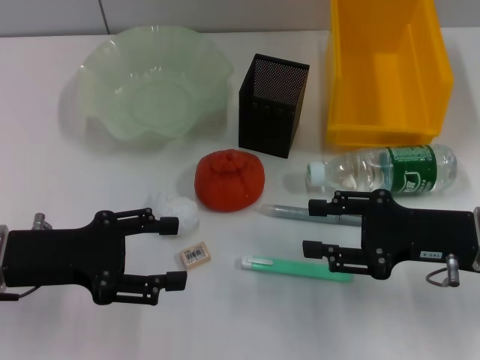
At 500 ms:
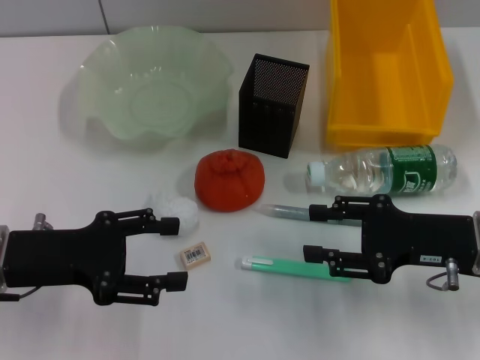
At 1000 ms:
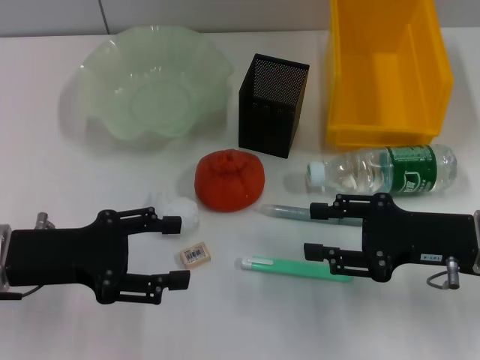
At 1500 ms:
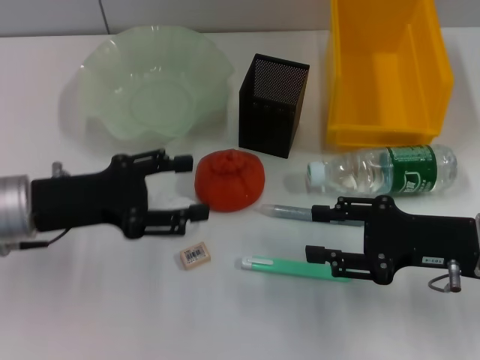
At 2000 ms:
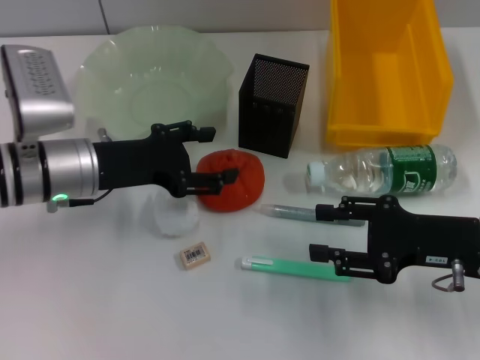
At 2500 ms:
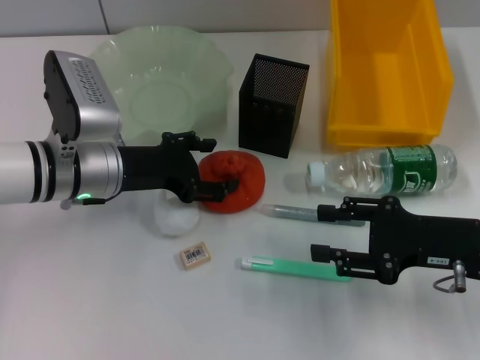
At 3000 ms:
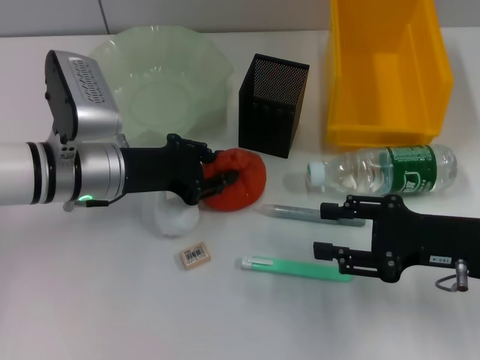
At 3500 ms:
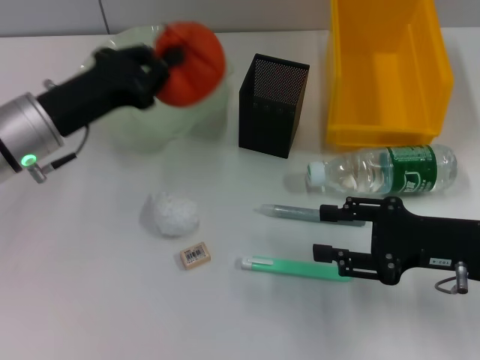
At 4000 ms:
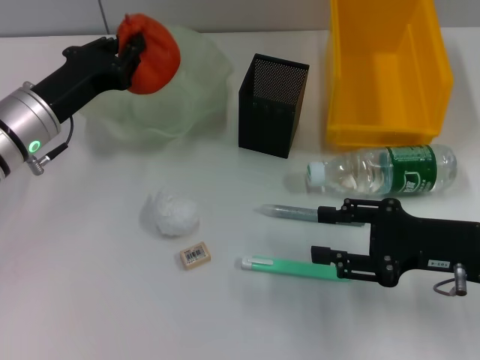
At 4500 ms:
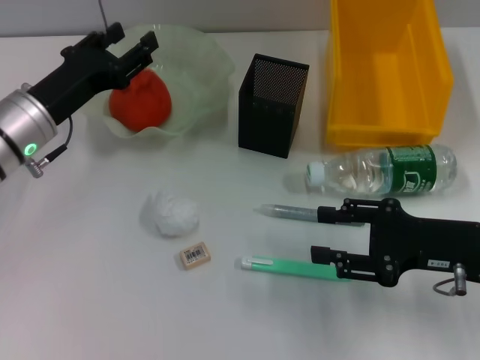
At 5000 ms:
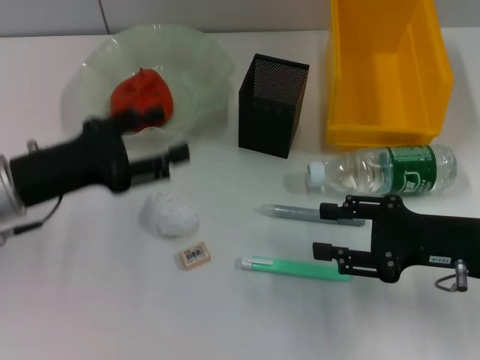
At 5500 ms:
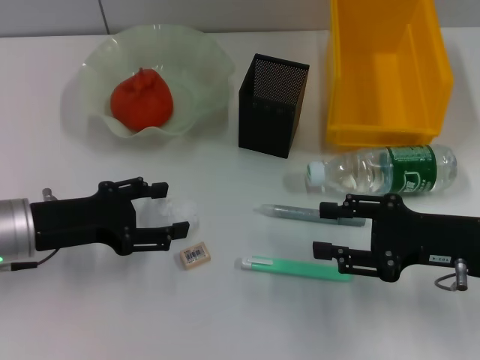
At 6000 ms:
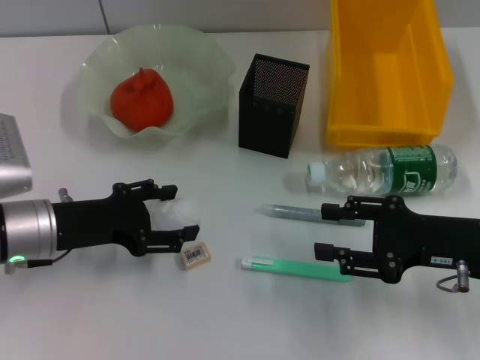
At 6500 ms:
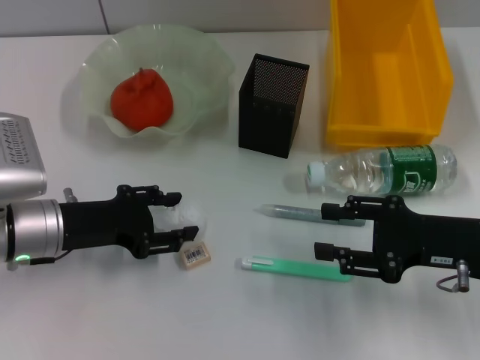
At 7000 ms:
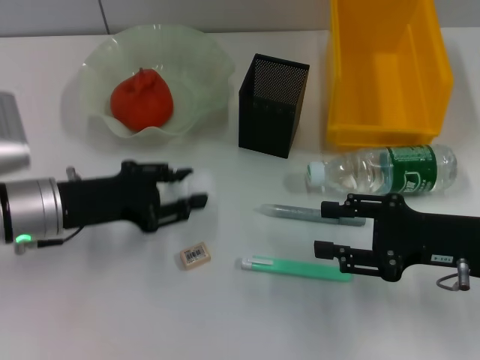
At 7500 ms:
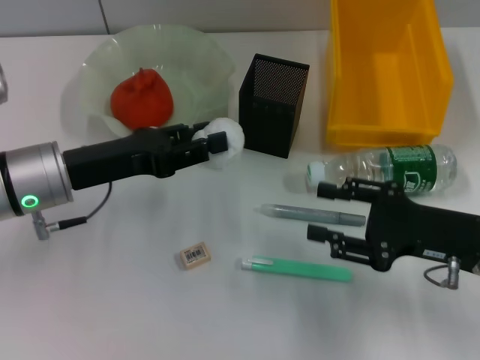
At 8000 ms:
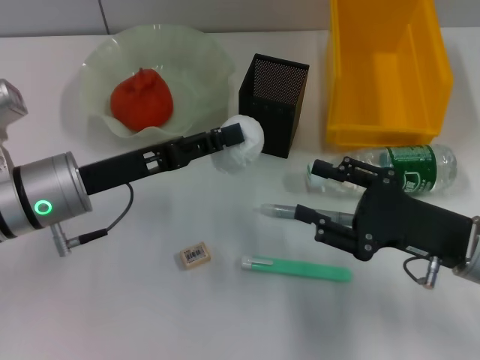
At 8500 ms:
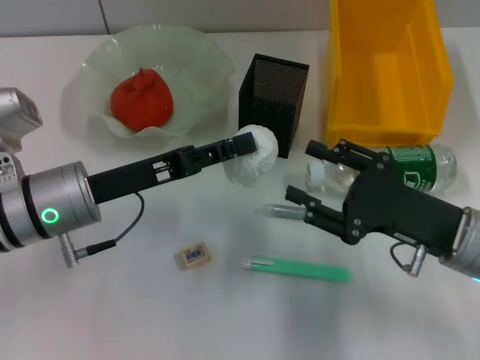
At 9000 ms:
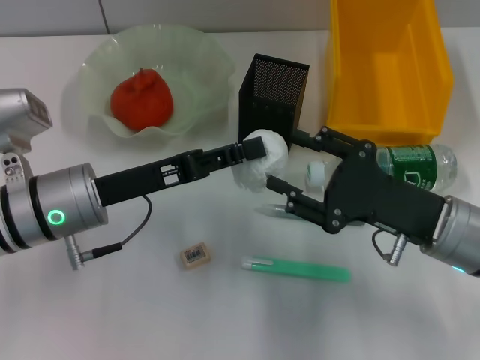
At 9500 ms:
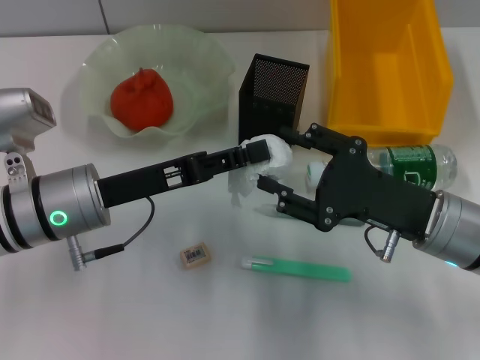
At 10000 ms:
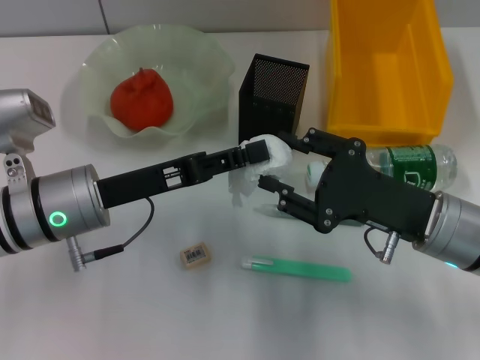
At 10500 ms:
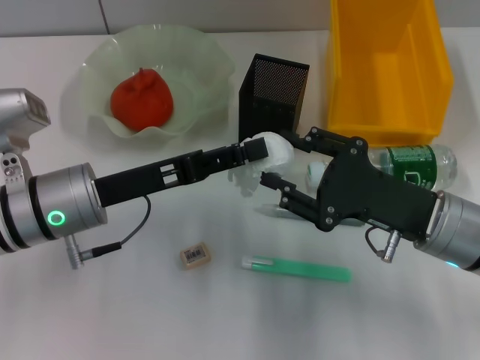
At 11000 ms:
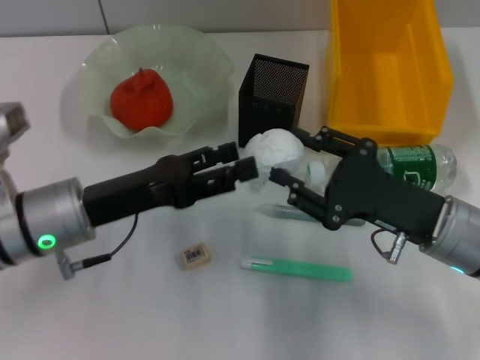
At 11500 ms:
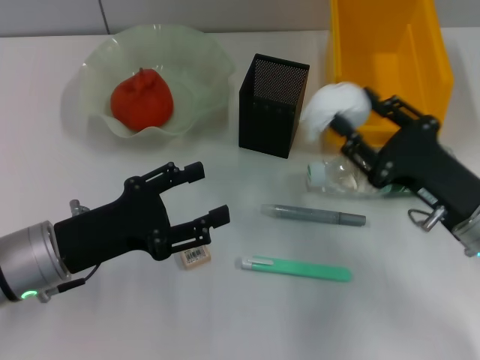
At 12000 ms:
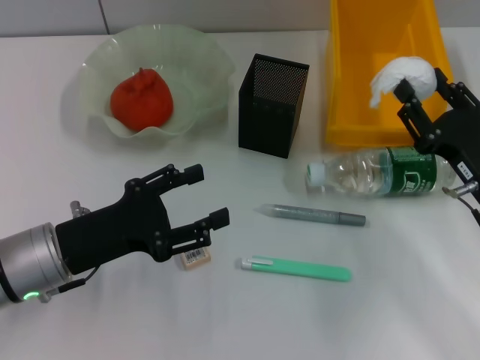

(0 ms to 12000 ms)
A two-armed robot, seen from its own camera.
Step, 0 ms - 2500 ms: Grab the orange with the left hand.
Step, 3000 ms - 4000 ms: Place the orange into the fruit bowl with the left hand.
Step, 4500 ms - 6500 ms: Grab the paper ball with the left hand.
Step, 7000 ms - 10500 ms: Pass the paper ball from the left hand to the right hand.
0 ms - 2000 ms: The left gripper shifts approximately 10 cm forward and to the right.
2000 ms - 4000 ms: The left gripper closes its fingers.
4000 ms - 6000 ms: The left gripper is displaced backward by about 5 cm, and opens up.
6000 ms - 8000 ms: The left gripper shifts by approximately 5 cm, and closes its fingers.
10000 ms - 12000 ms: The left gripper moves approximately 5 cm, and opens up, while the right gripper moves to the right, approximately 5 cm.

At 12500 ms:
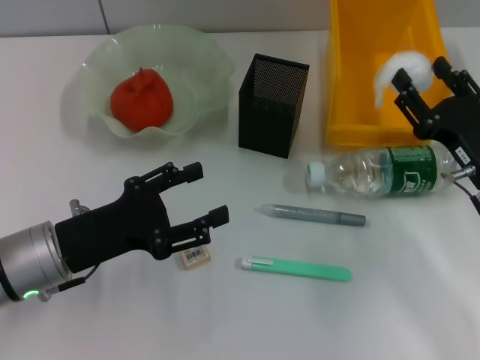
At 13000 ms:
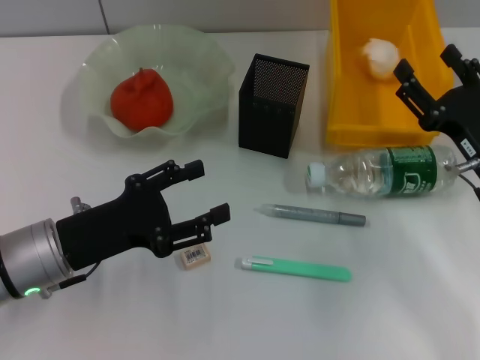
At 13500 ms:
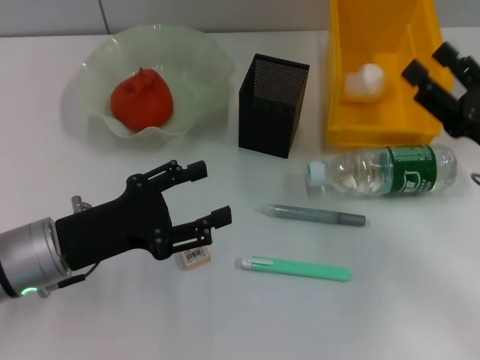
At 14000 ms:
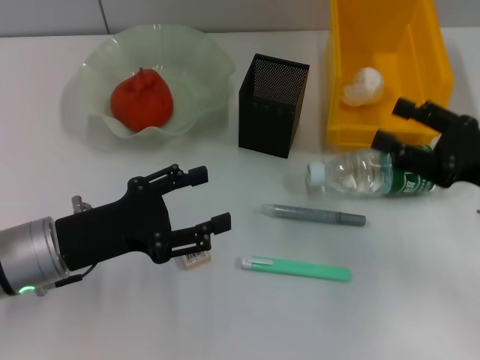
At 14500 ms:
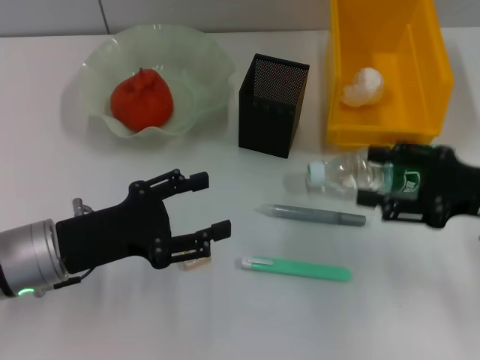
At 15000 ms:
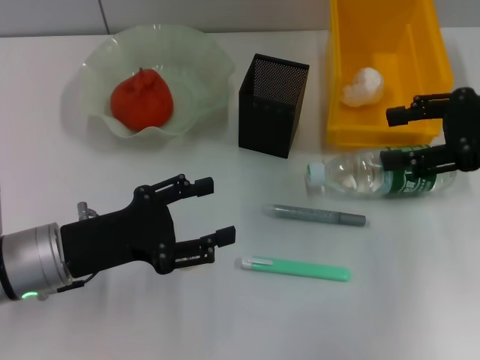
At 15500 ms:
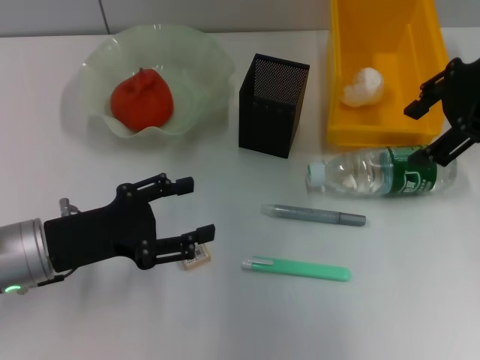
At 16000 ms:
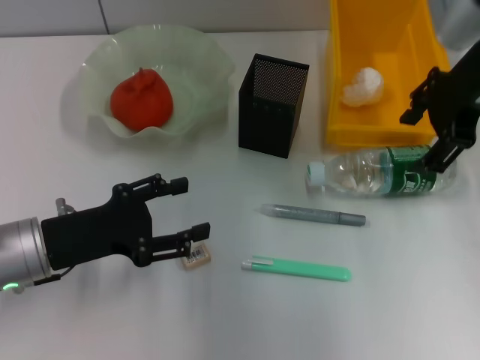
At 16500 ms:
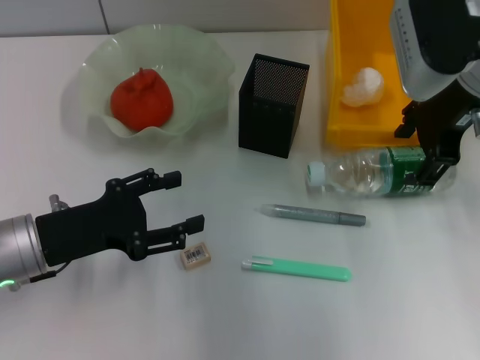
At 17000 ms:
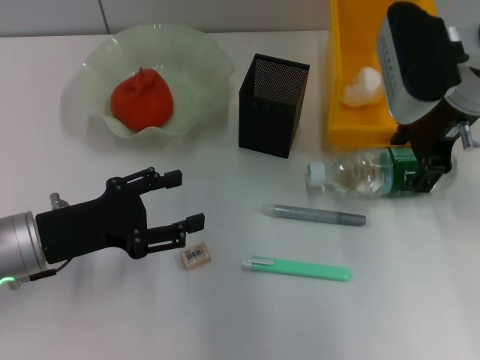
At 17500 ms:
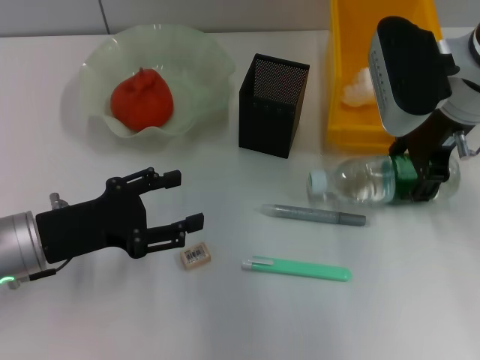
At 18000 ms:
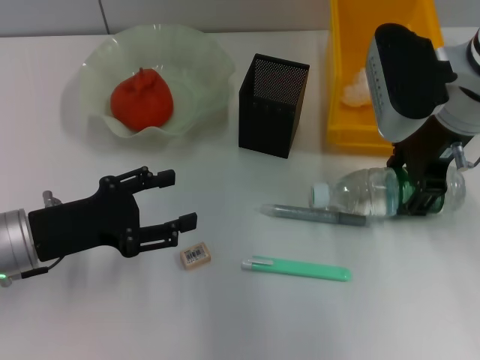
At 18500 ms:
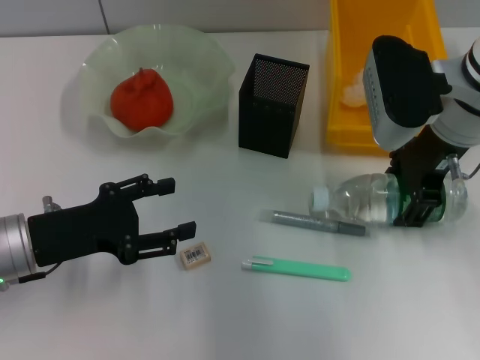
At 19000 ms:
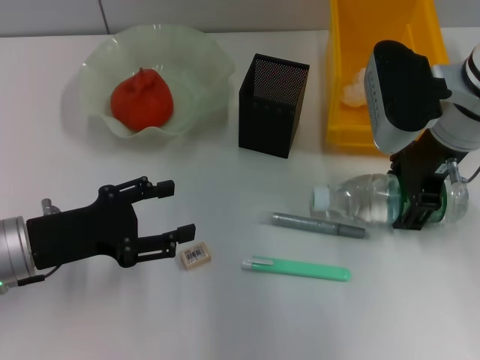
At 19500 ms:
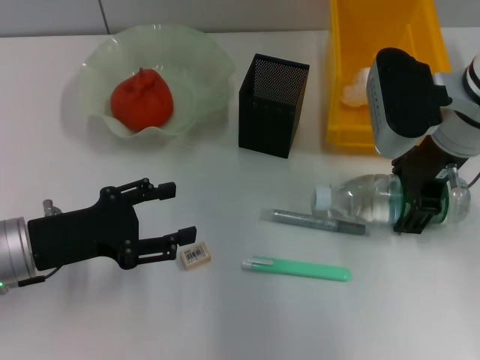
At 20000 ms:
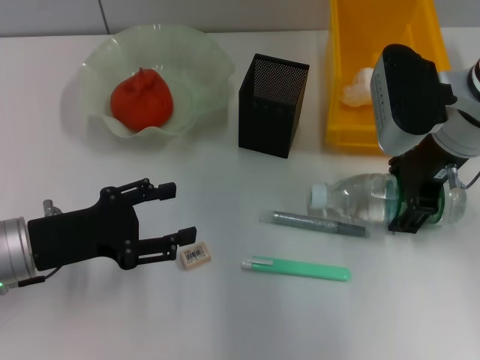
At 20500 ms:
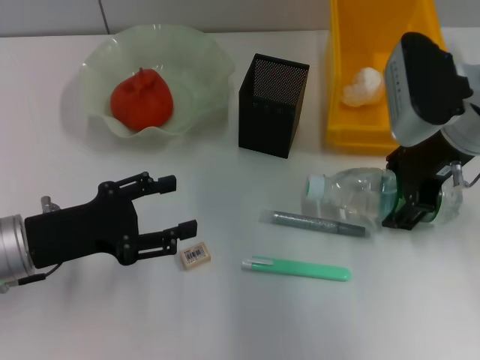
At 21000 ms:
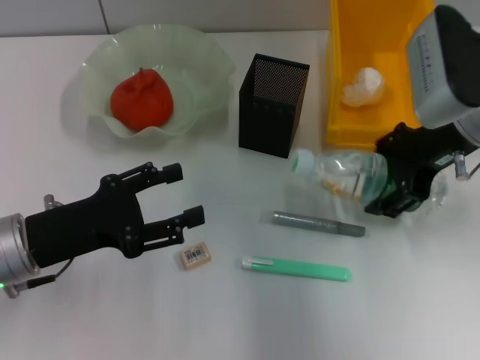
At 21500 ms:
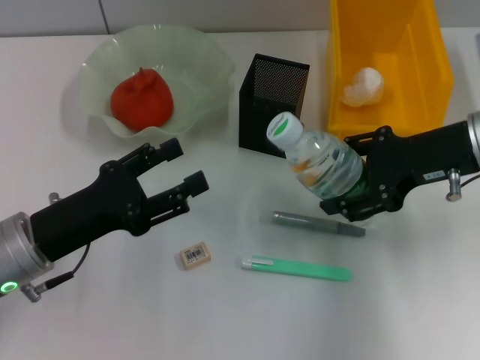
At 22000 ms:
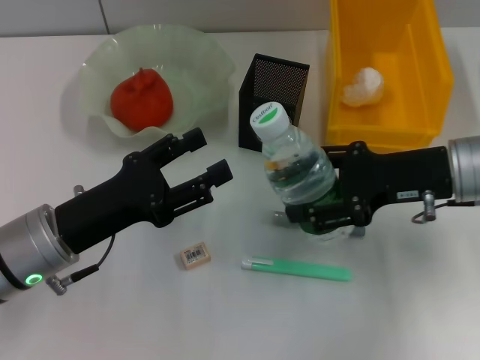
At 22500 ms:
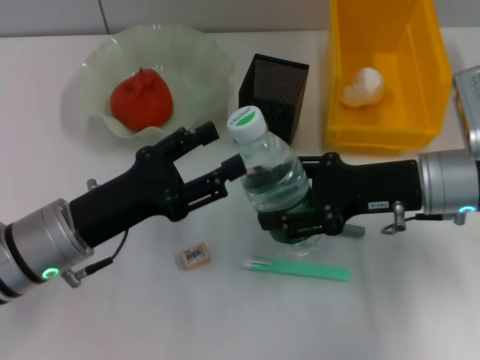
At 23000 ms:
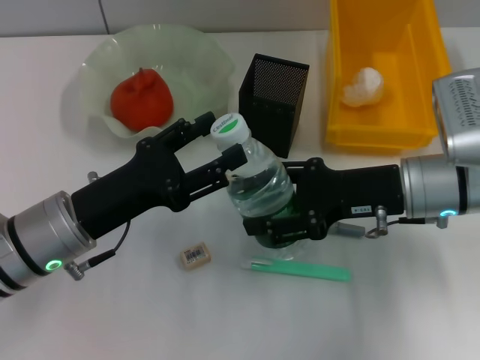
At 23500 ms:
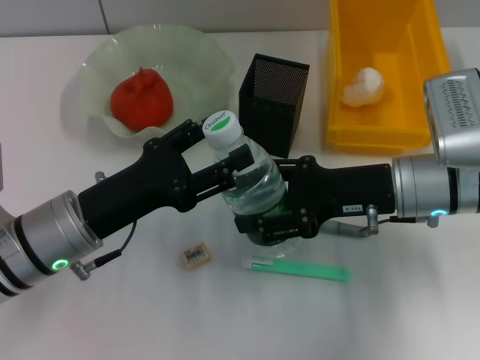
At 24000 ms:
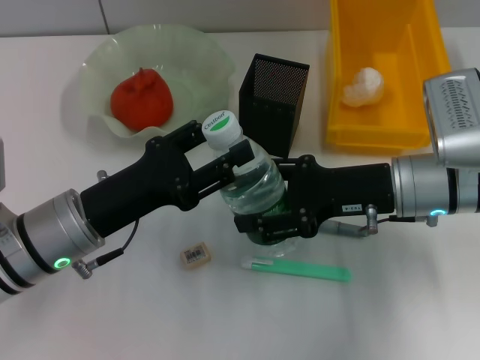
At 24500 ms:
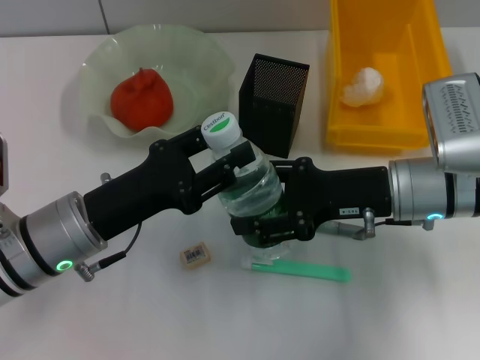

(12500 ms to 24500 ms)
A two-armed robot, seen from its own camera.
Step, 14000 ms - 20000 ms: Grab the water bottle with the right hand.
12500 ms - 14500 ms: The right gripper travels upward by approximately 5 cm.
14500 ms - 16500 ms: The right gripper travels forward, upward and to the left by about 20 cm.
16500 ms - 20500 ms: The grippers stay close to where they were, moving slightly.
20500 ms - 22500 ms: The left gripper travels to the right by some 5 cm. The right gripper moves downward and backward, about 10 cm.
22500 ms - 24500 ms: The grippers make only small movements.

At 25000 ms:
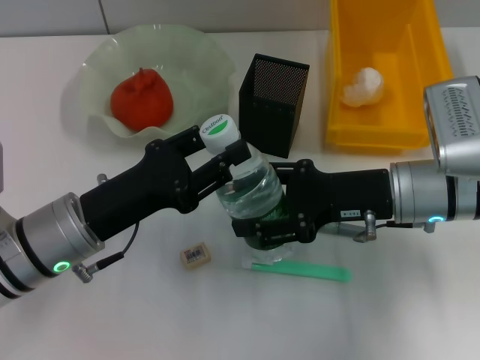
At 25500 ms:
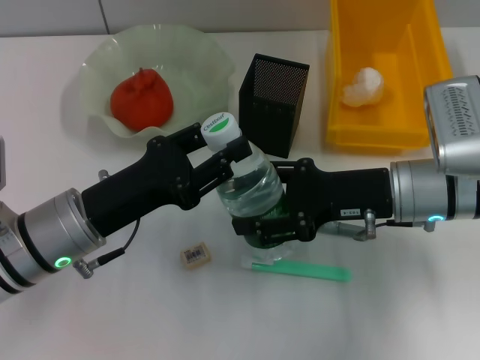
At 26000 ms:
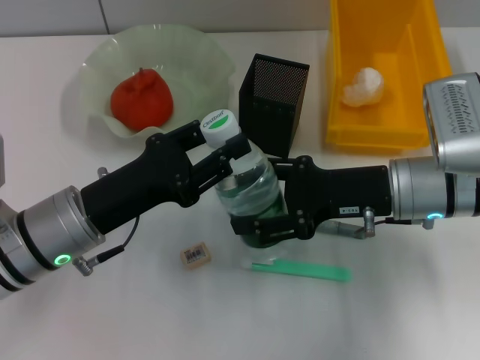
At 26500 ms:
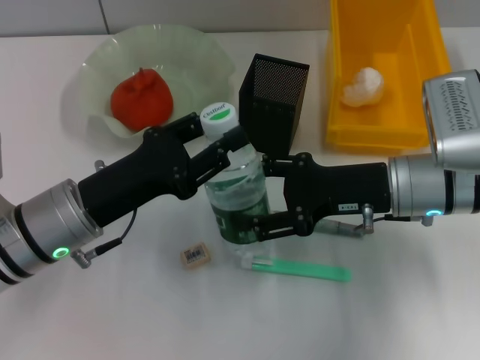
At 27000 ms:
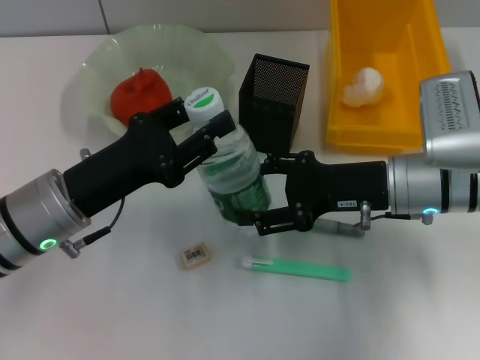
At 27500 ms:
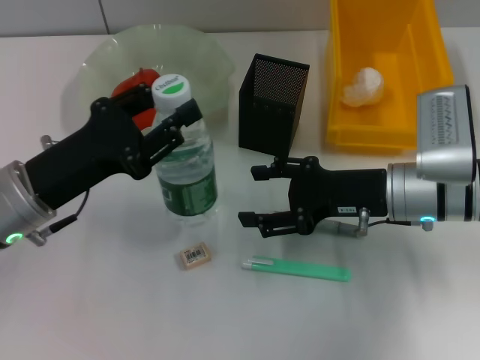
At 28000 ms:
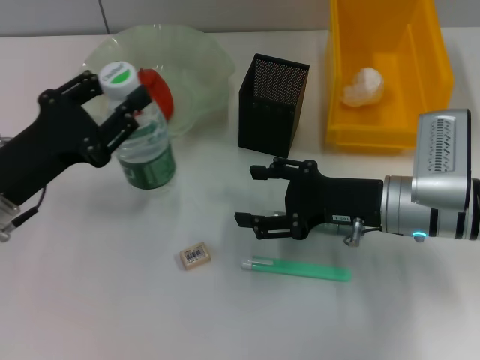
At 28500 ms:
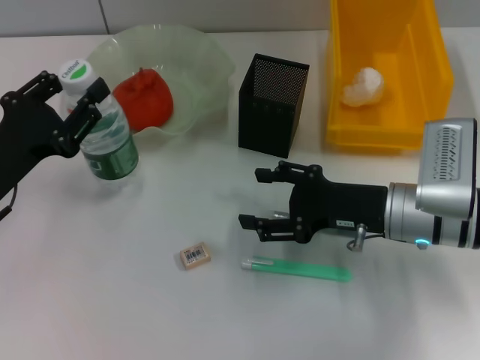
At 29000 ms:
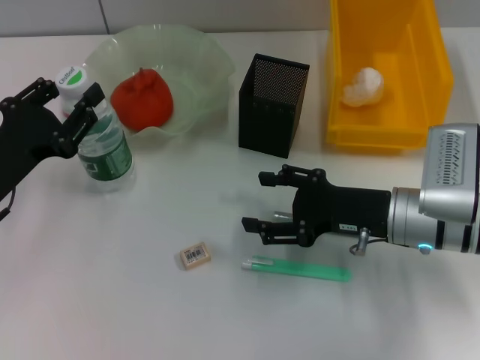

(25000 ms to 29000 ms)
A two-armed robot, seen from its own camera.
25000 ms - 27000 ms: The grippers stay close to where they were, moving slightly.
27000 ms - 29000 ms: The left gripper shifts approximately 10 cm to the left.
